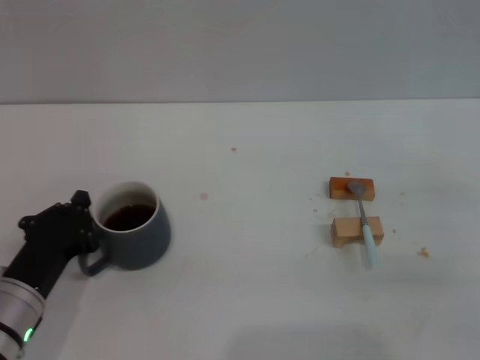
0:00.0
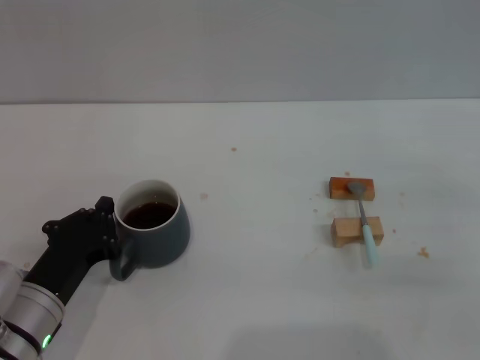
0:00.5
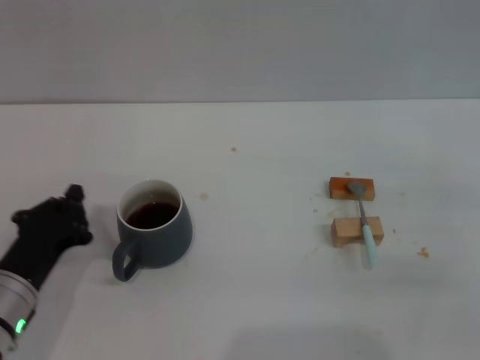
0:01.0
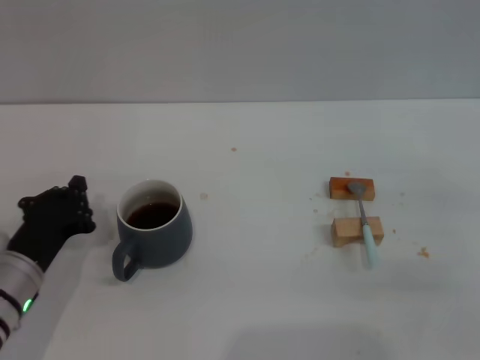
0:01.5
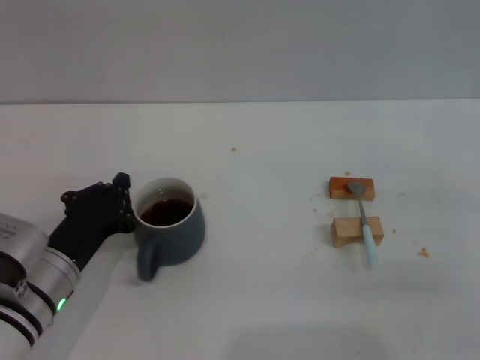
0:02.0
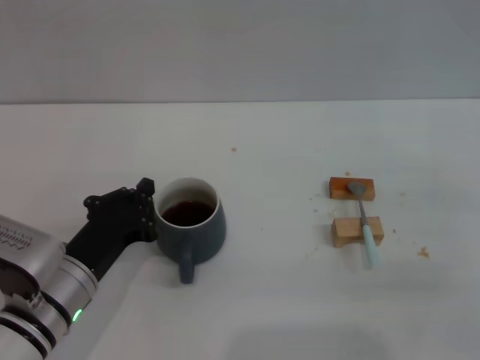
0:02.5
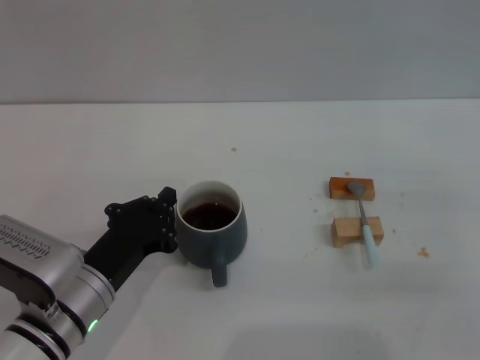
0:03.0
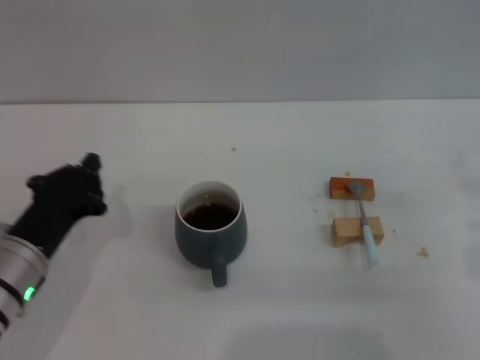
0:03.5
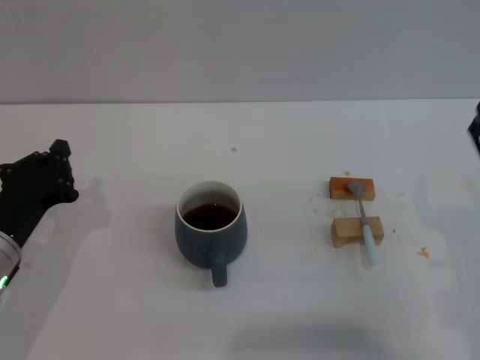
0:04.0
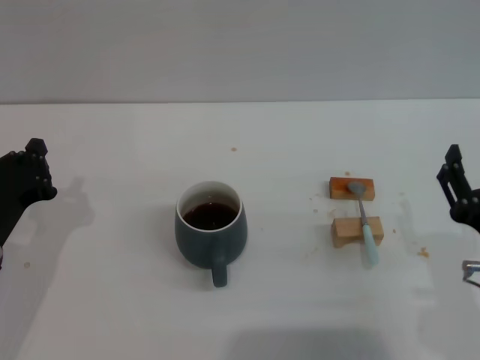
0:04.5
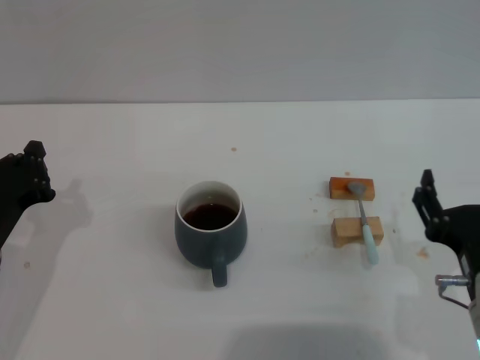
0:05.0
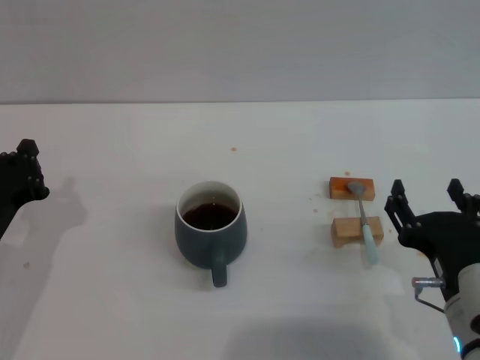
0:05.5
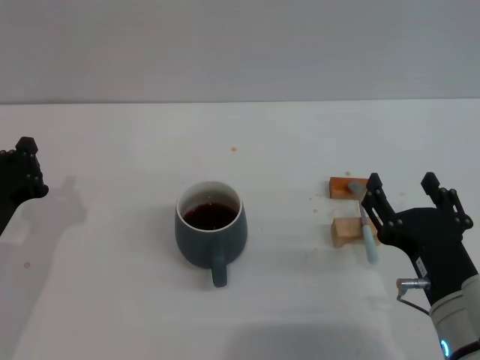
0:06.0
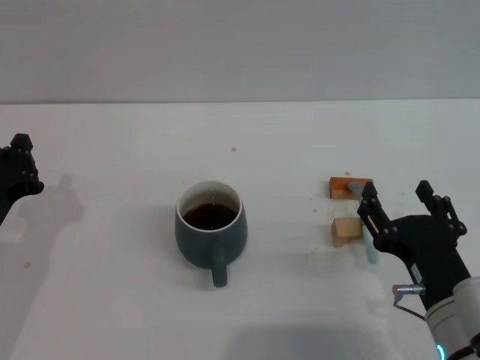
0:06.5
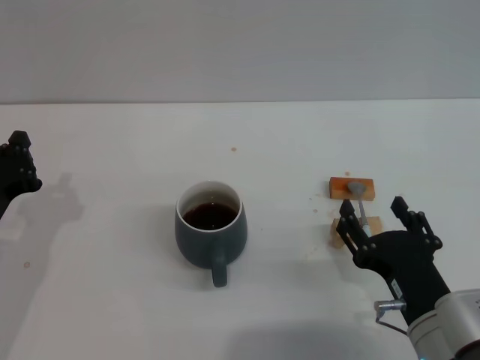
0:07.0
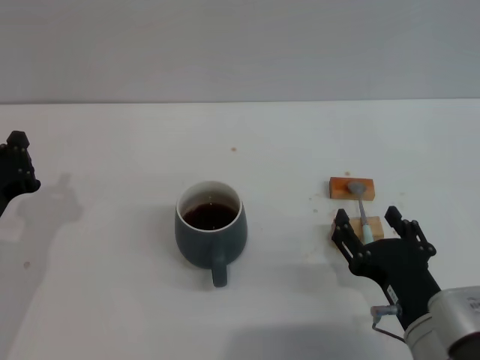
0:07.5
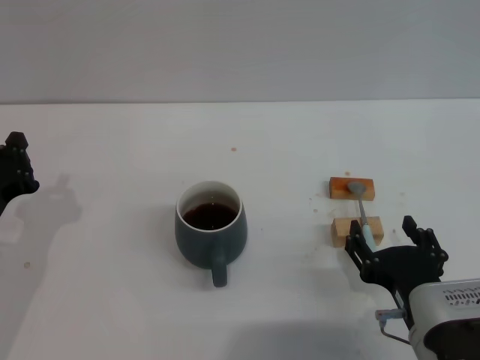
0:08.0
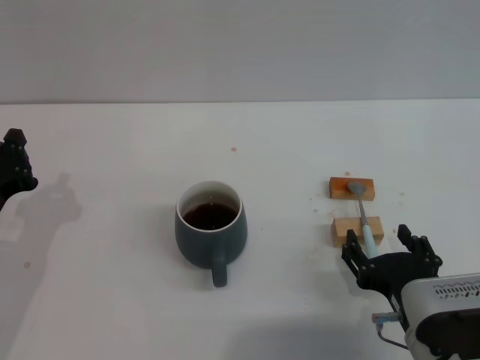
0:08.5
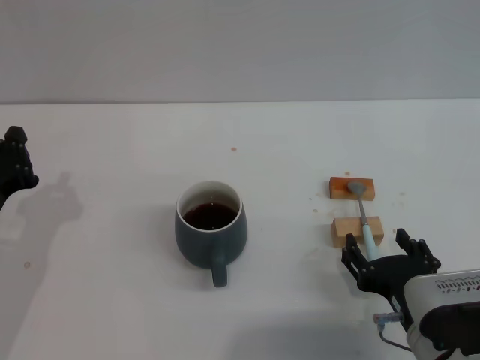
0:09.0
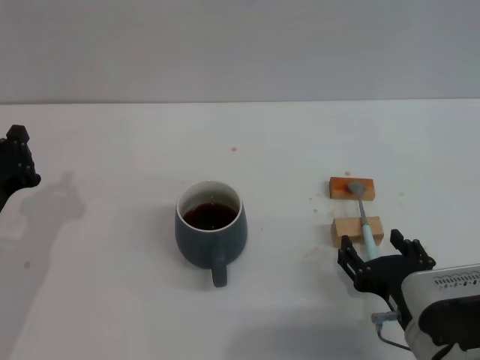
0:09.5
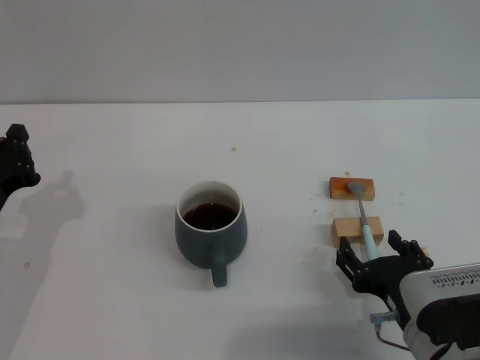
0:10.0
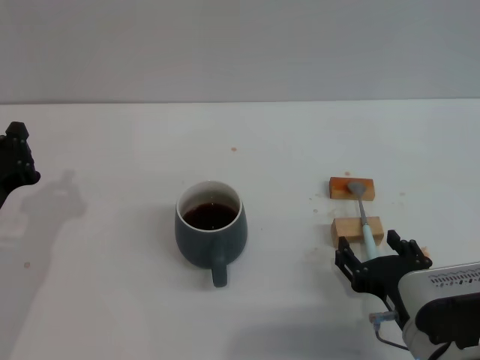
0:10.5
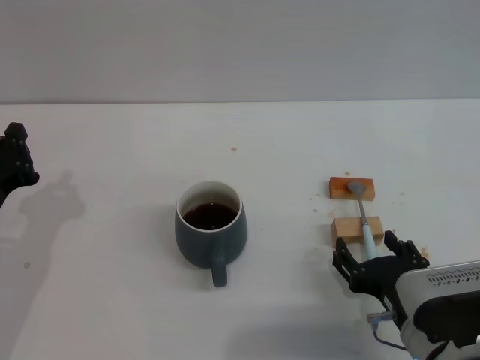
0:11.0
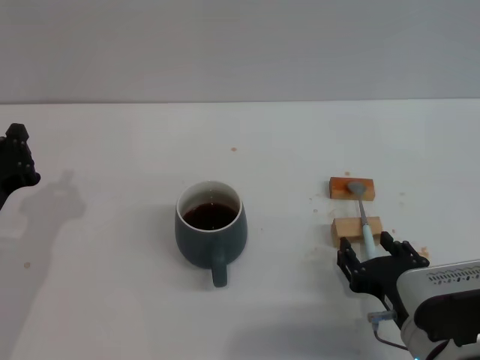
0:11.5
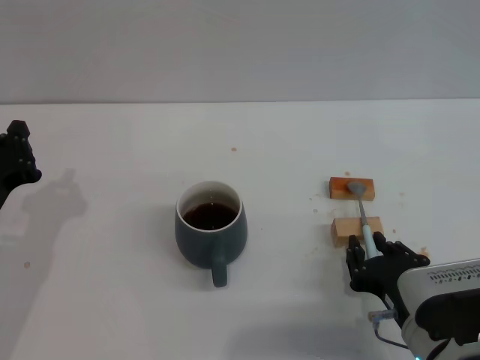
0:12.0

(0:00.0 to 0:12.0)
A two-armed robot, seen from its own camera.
Task of the whole recording: Move the grey cup to the center, lift the blue spoon, stir it three times in the cup, and put the spoon into the cup.
Step, 0:00.0 - 0:03.0: Move the cup with coffee to the center of view with the left gripper.
0:00.0 - 0:02.0: There are only small adjustments of the grippers.
0:02.0 - 0:04.0: The right gripper is displaced to the left by some 10 cm.
0:04.0 - 0:06.0: The right gripper is displaced to the left by about 5 cm.
0:06.0 - 0:08.0: The grippers stay close to where they were, moving slightly.
0:08.0 - 0:10.0: The grippers move only a little.
0:10.0 - 0:12.0: The right gripper closes.

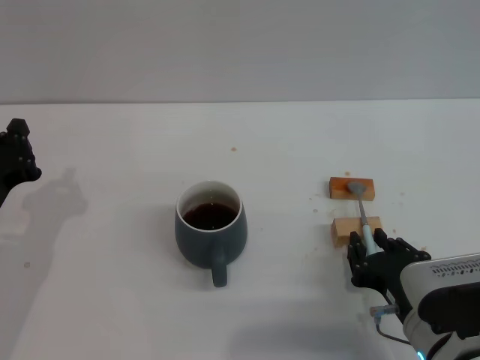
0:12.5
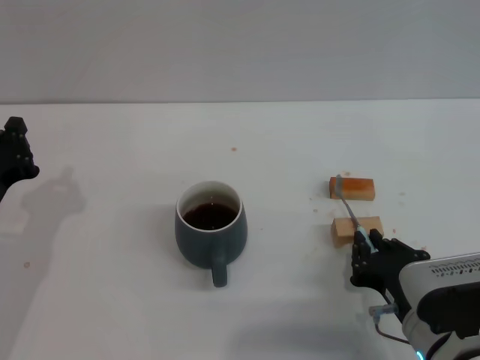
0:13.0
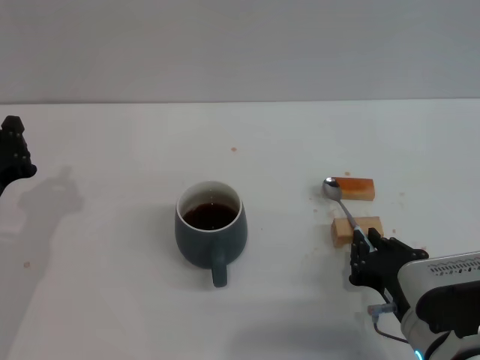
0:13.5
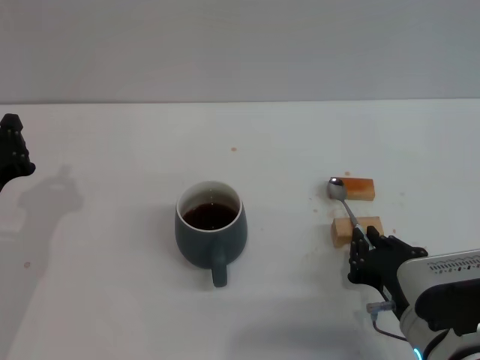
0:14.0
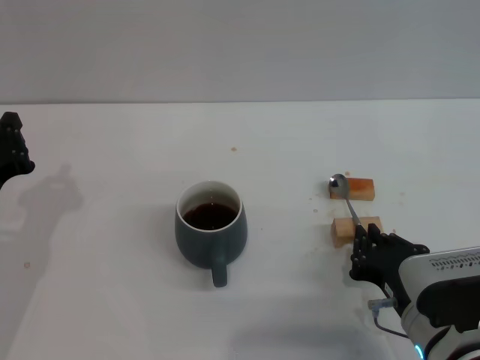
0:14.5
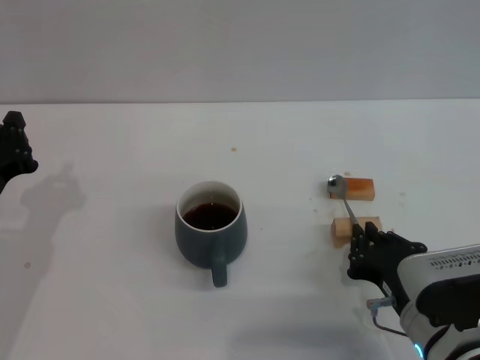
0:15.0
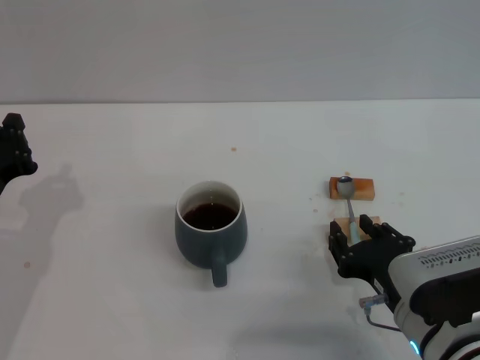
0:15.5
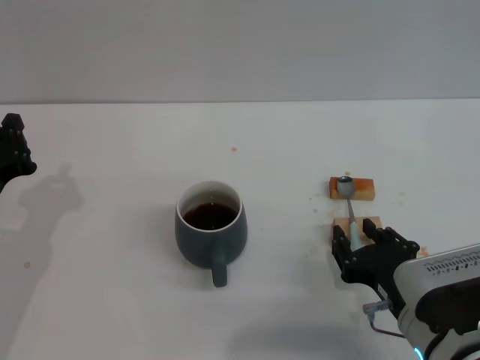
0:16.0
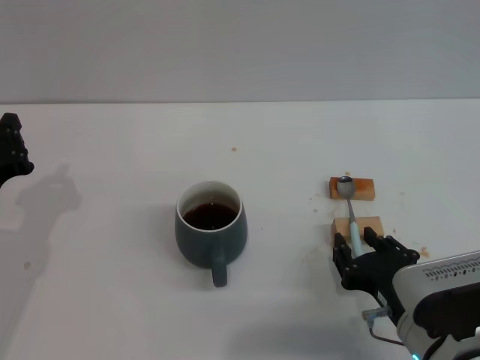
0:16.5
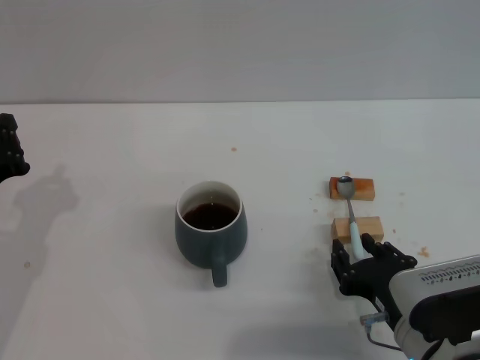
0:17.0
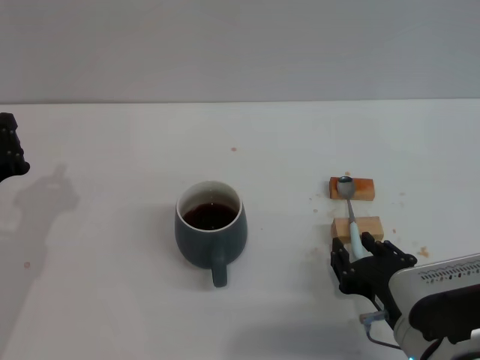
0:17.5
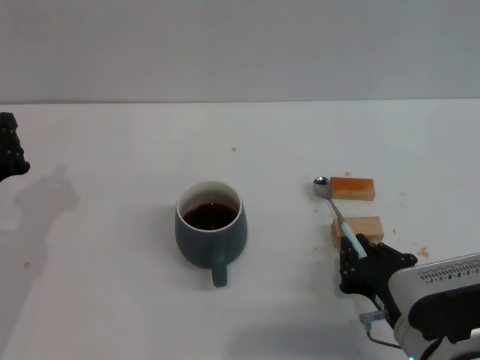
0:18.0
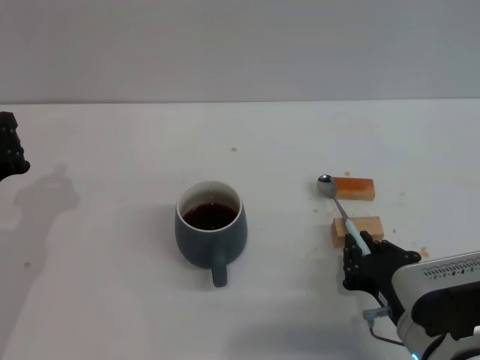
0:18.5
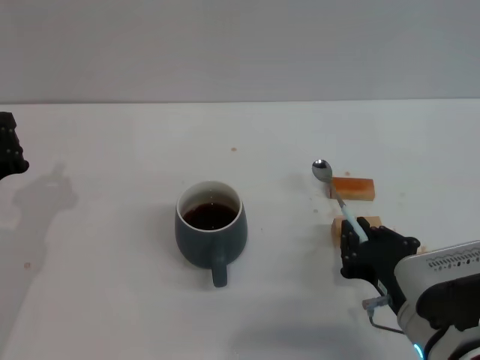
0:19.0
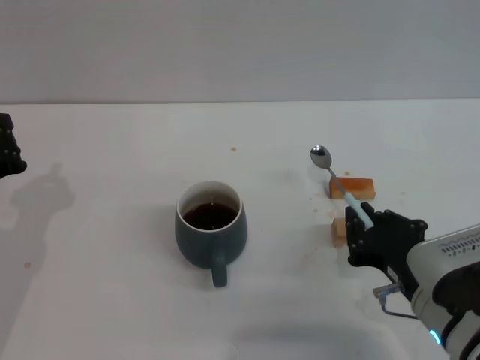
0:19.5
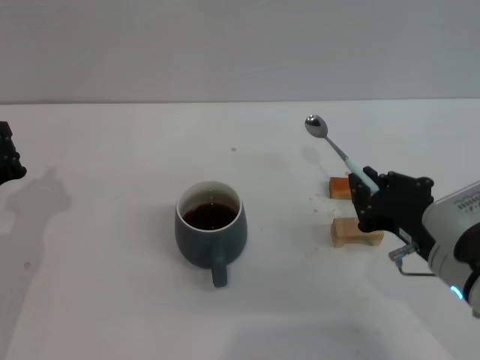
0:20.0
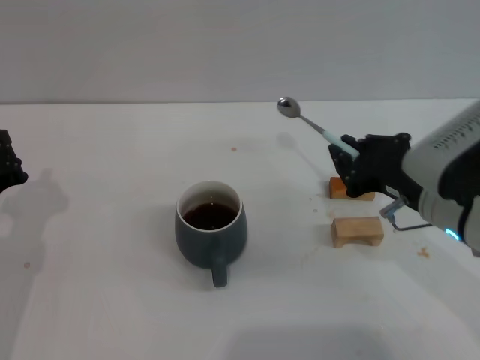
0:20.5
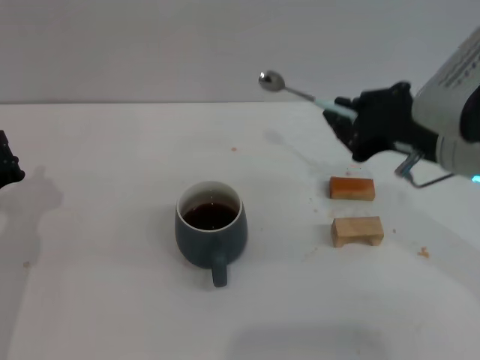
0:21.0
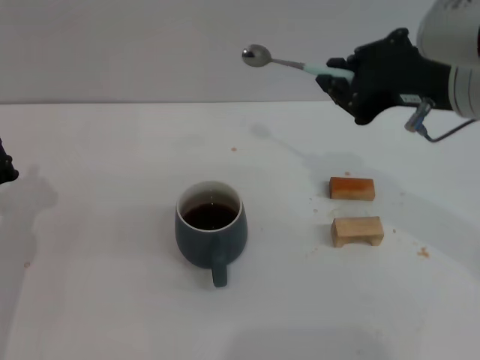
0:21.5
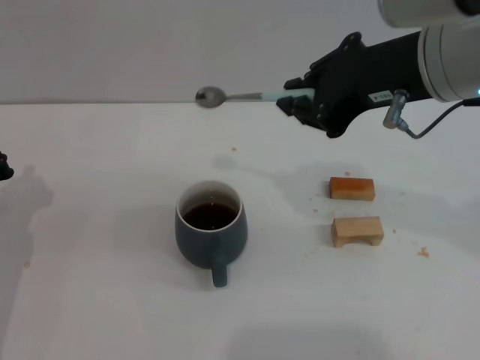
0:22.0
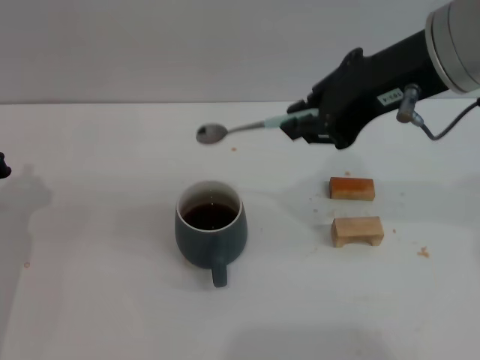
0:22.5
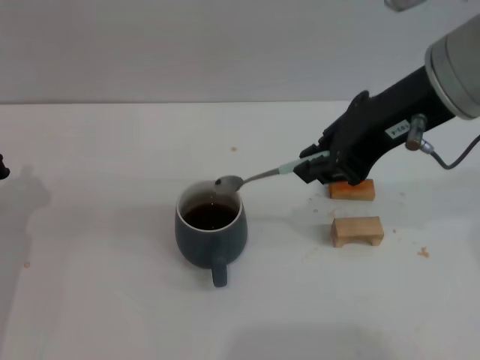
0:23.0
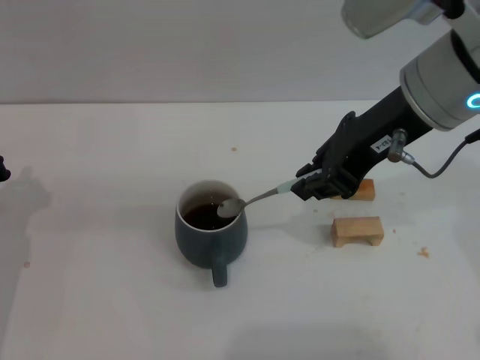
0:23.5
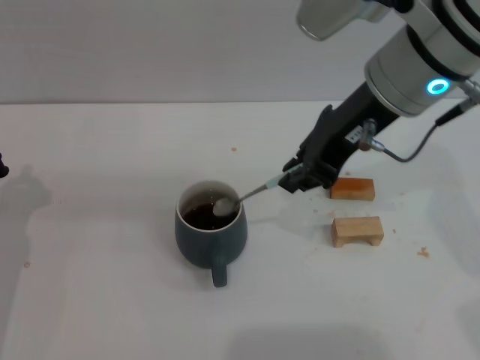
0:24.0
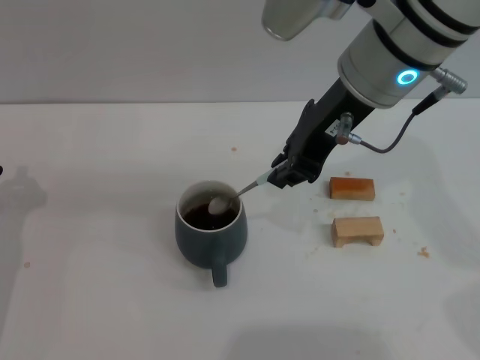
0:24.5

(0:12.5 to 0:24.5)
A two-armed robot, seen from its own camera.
Task of the whole recording: Move the grey cup to the center, lift the blue spoon, stir it three times in the cup, and put the spoon into the cup.
Step, 0:12.5 - 0:20.0: Pick up the spoon with the right gripper.
0:12.5 - 0:14.5: Both grippers stay put.
0:14.5 - 0:16.5: The right gripper opens up.
0:16.5 - 0:18.5: The right gripper closes its fingers.
0:18.5 - 0:20.5: The right gripper shifts approximately 15 cm upward and forward.
0:20.5 - 0:22.5: The right gripper travels upward by about 20 cm.
0:22.5 - 0:24.5: The right gripper travels to the left by approximately 5 cm.

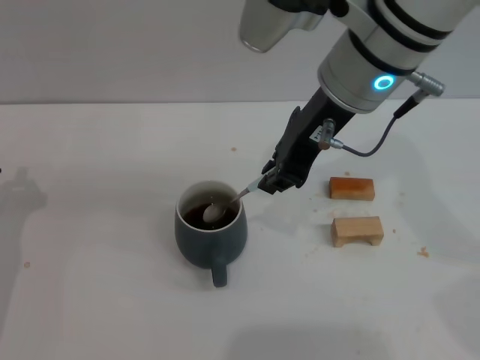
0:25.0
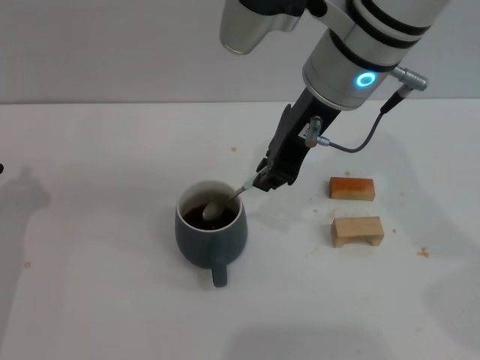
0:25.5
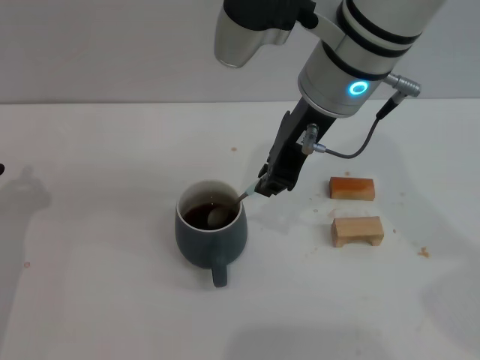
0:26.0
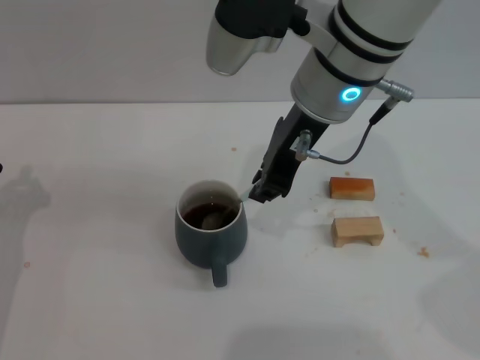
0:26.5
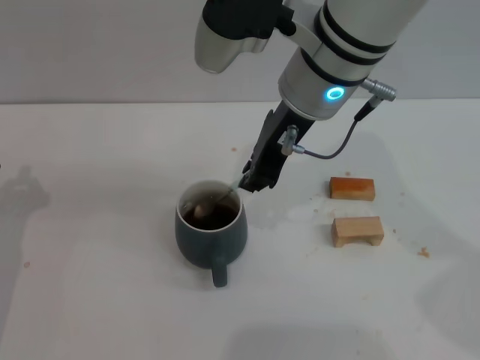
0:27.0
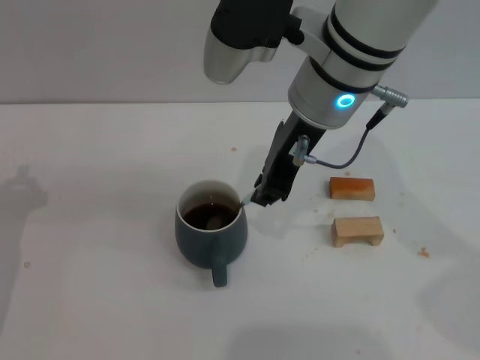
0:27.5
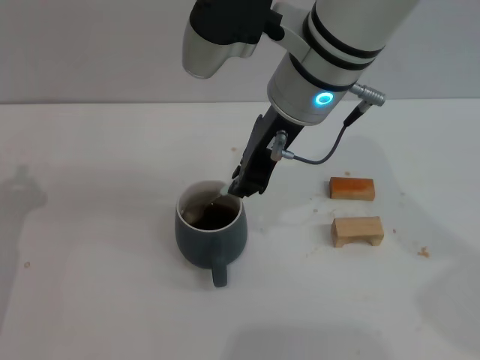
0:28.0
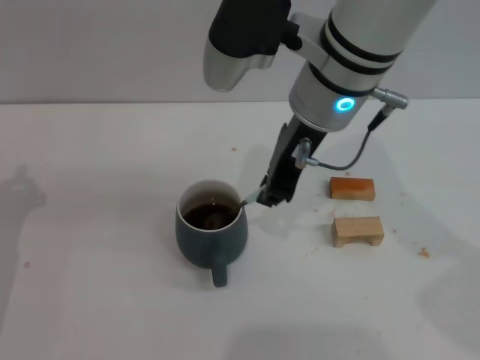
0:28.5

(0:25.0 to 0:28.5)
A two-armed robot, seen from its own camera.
Task of the whole recording: Move the grey cup to the center, lift the blue spoon, stir it three times in the cup, and put the spoon into the cup.
0:25.0 - 0:28.5: There are only small adjustments of the grippers.
